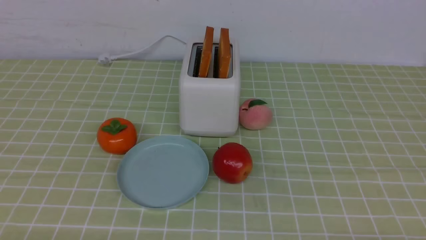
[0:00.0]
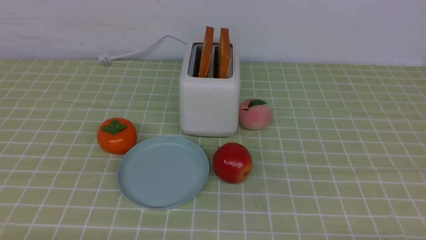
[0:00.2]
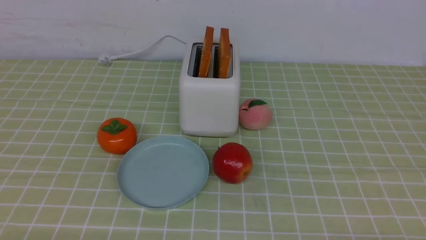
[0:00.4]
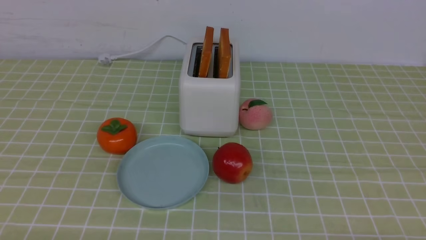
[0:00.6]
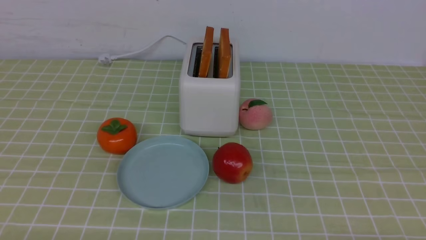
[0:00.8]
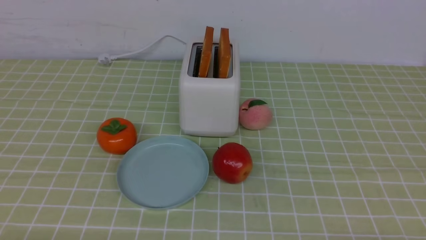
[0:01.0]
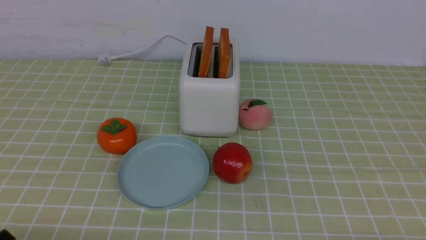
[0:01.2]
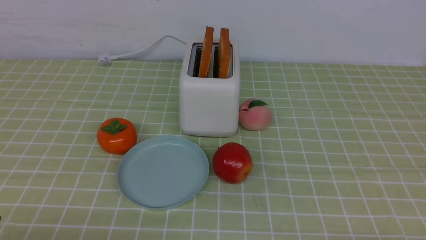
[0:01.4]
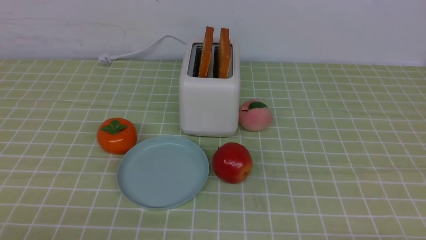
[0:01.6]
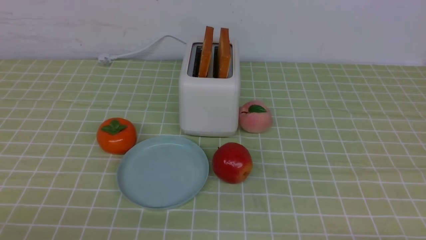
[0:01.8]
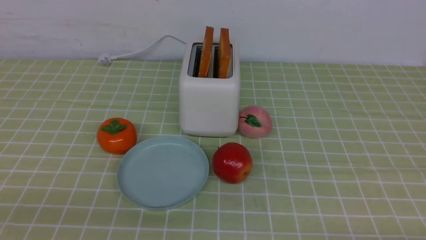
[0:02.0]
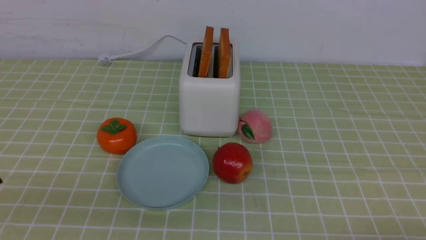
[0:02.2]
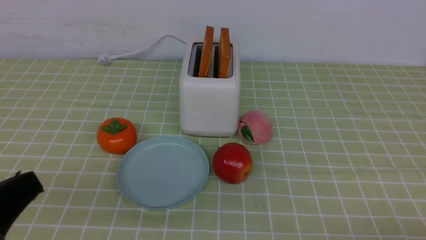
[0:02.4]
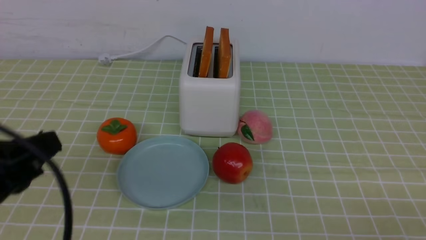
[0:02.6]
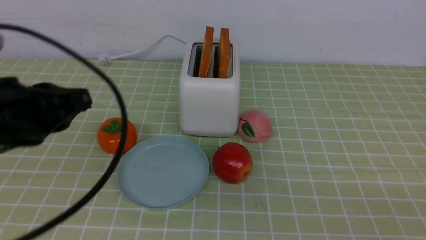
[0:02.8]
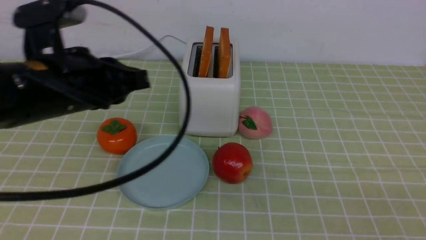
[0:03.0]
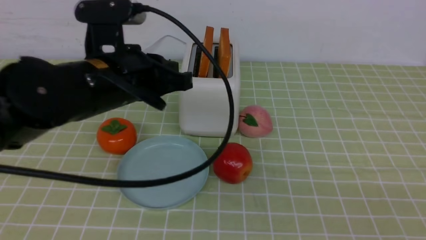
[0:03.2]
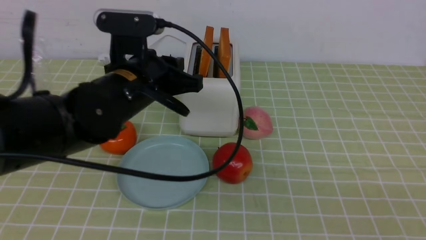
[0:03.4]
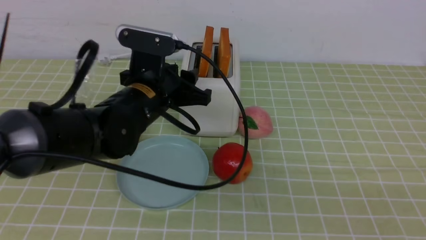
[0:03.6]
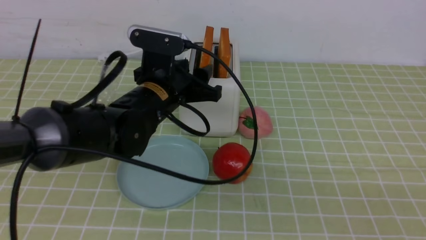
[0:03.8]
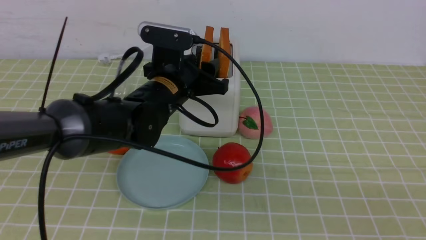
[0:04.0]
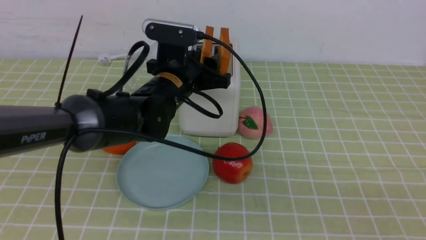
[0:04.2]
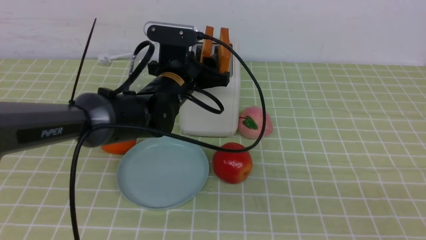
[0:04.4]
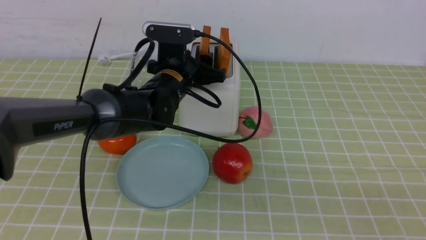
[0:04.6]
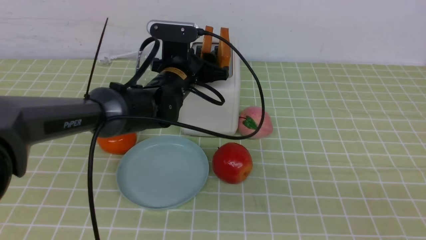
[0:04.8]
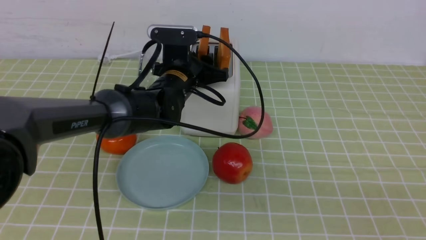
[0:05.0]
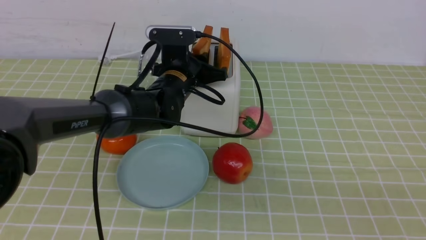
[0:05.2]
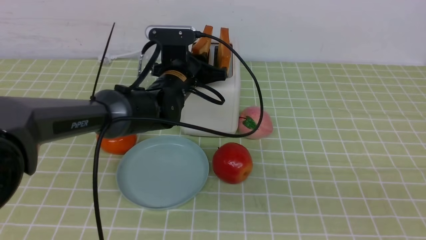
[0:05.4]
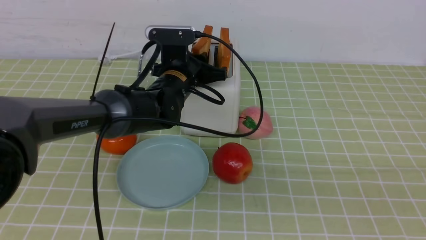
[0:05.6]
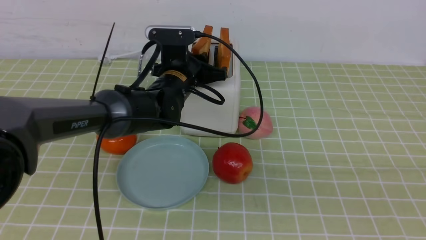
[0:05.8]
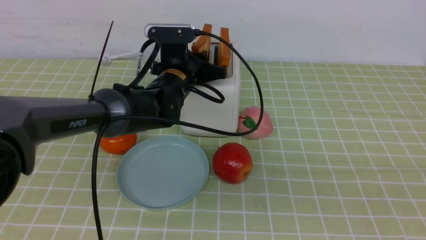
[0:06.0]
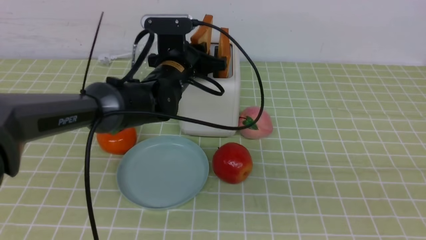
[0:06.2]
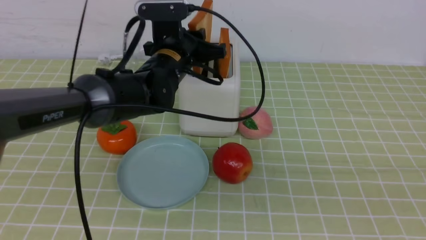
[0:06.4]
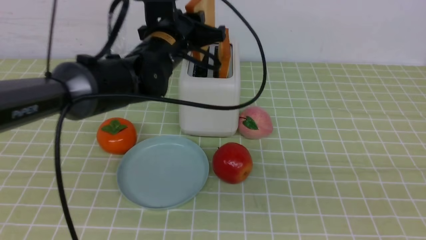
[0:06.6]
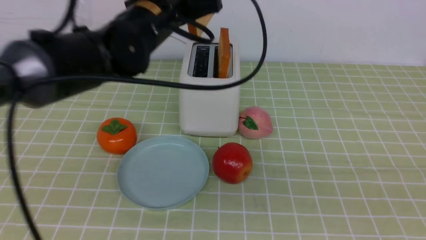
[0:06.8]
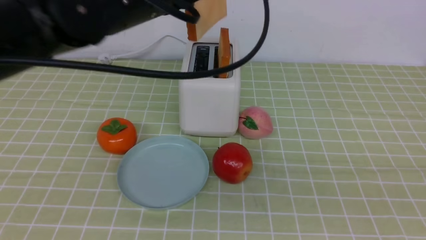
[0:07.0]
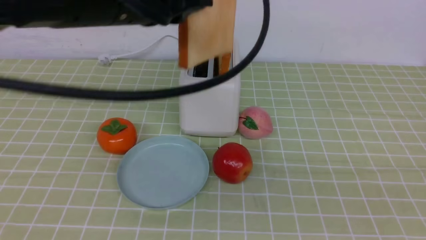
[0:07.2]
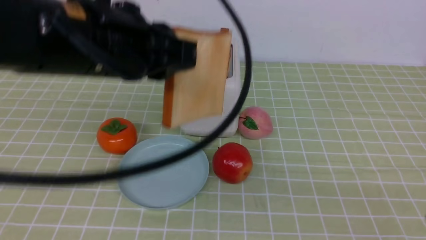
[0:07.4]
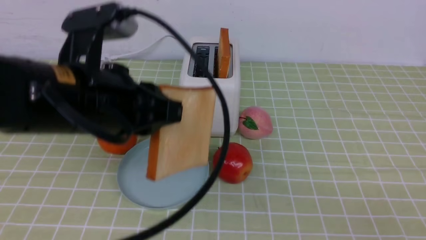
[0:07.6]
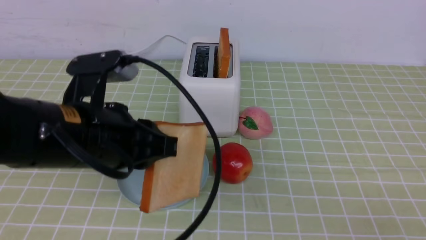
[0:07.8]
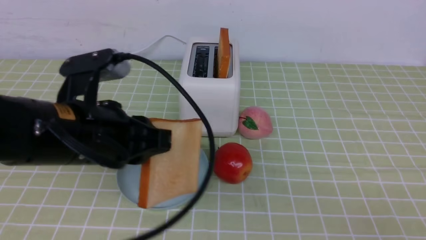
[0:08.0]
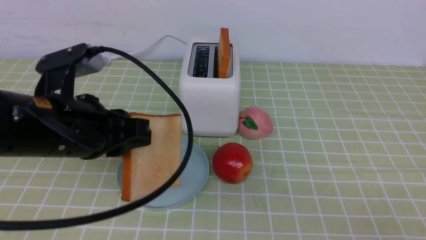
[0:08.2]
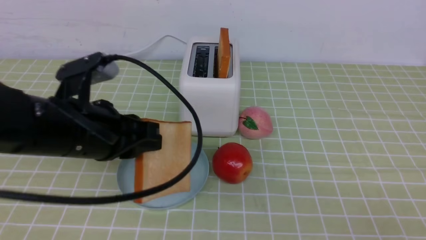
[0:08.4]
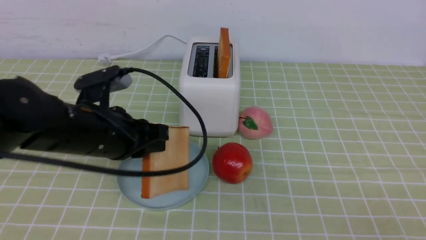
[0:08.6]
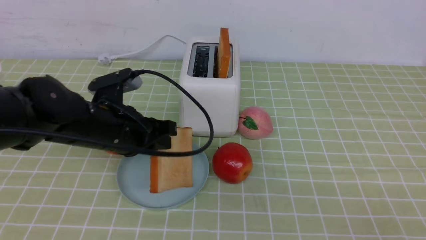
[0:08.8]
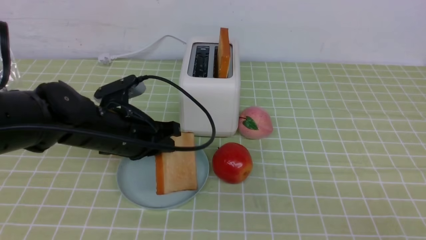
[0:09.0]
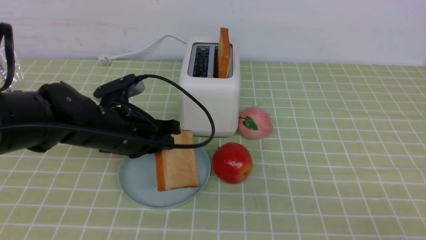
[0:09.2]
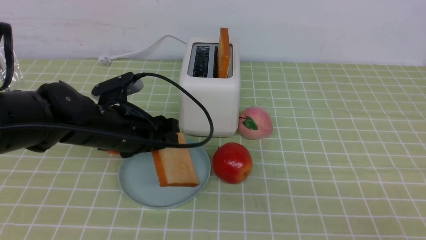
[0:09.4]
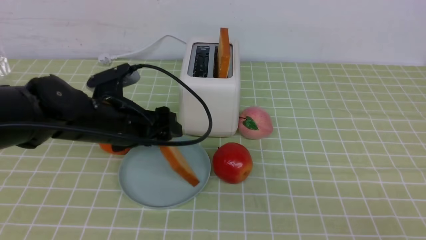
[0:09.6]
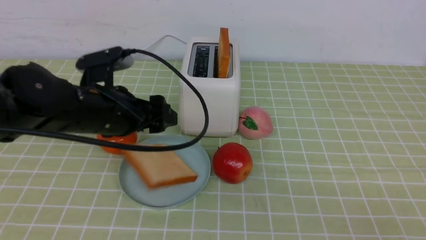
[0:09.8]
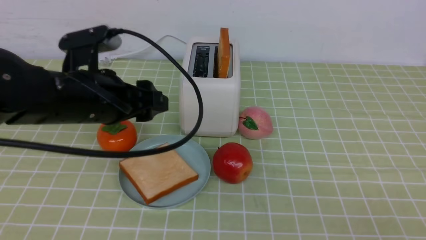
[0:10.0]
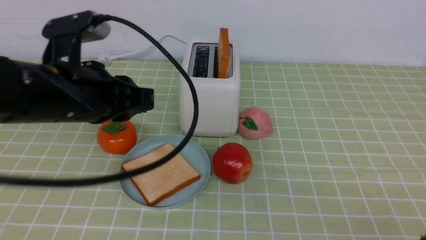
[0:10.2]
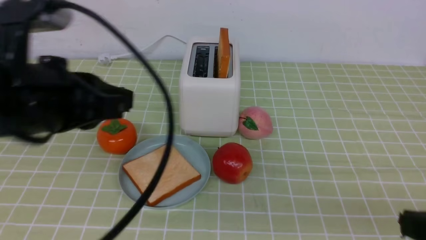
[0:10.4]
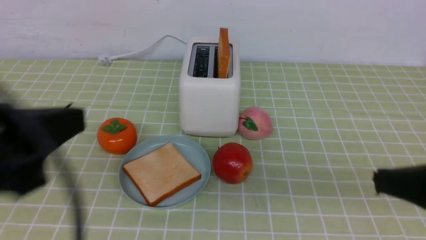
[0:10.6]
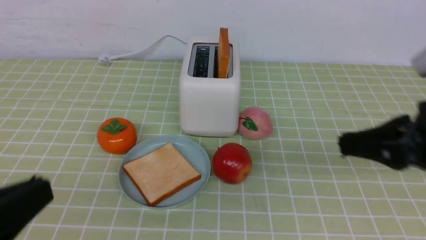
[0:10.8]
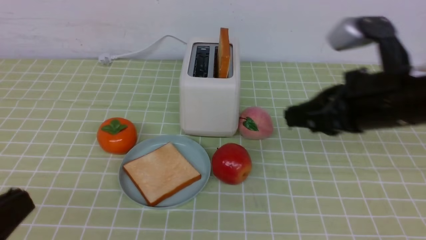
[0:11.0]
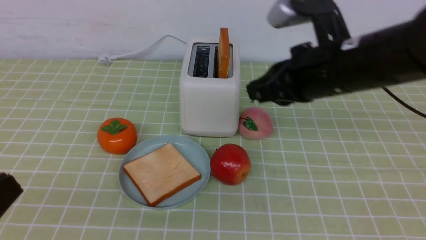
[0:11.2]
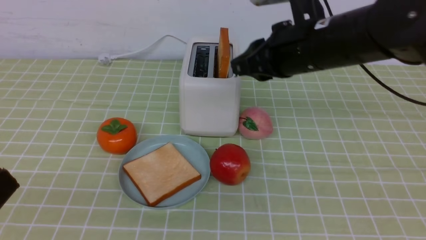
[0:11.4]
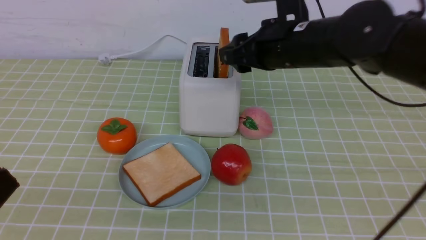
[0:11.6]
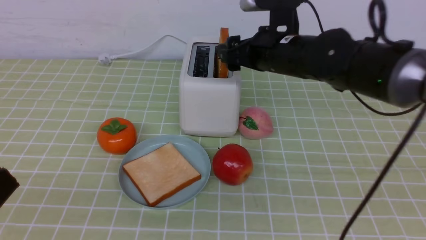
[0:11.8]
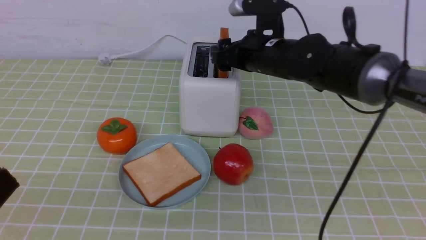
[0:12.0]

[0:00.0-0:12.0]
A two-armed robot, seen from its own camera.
Task of the whole recording: take toasted bread from bread machine on green coffee tablecloth place on plate.
Step, 0:00.0 to 0:06.6: use the left arm to take out a slice of bread.
Step, 0:06.8 to 0:10.0: use the left arm to put a slice of bread into the empty plate.
0:01.6 to 0:03.0: The left gripper goes roughly 25 cm forward, upward and to the right, and closes up; the right gripper goes roughly 15 cm upward, and closes up.
0:03.0 to 0:04.4: The left gripper moves forward, to the right and downward, approximately 20 cm, and opens.
0:04.4 to 0:06.0: The left gripper closes up.
0:06.0 to 0:07.6: The left gripper heads backward and upward, covering about 25 cm.
0:07.6 to 0:09.0: The left gripper heads downward and forward, covering some 15 cm.
0:09.0 to 0:10.4: The right gripper heads forward, covering roughly 5 cm; the left gripper is displaced backward and upward by about 20 cm, and opens, then closes once more.
0:10.4 to 0:12.0: The right gripper is displaced forward and to the left by about 35 cm, and opens up, while the left gripper travels backward by about 15 cm.

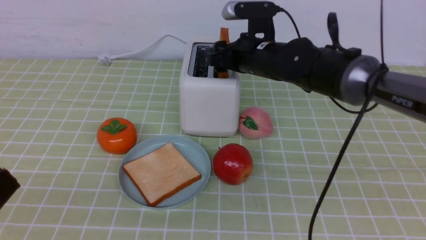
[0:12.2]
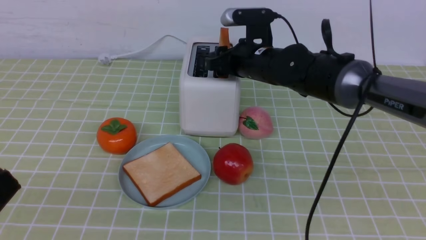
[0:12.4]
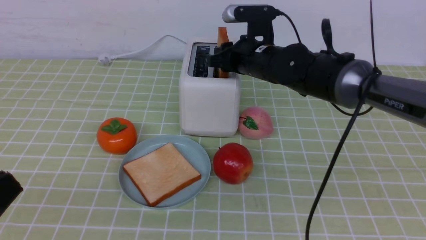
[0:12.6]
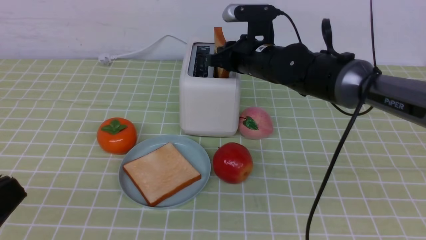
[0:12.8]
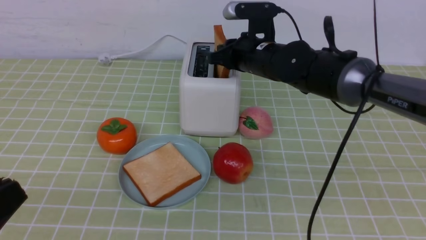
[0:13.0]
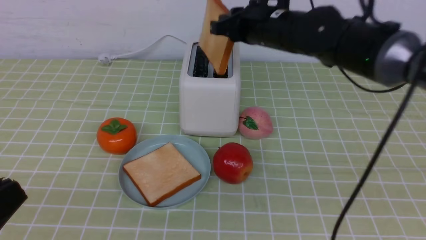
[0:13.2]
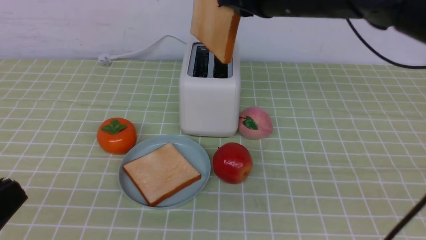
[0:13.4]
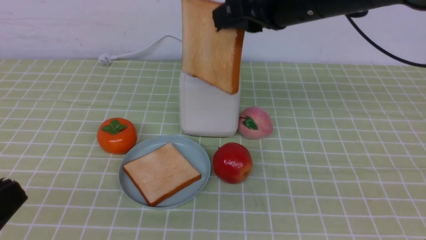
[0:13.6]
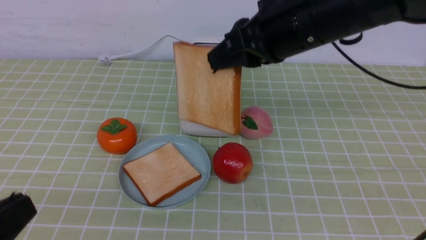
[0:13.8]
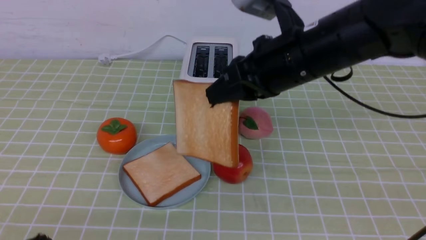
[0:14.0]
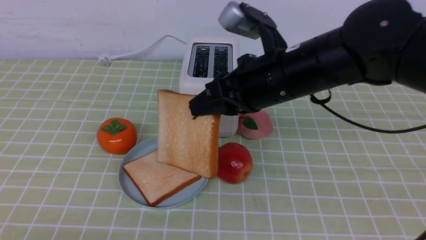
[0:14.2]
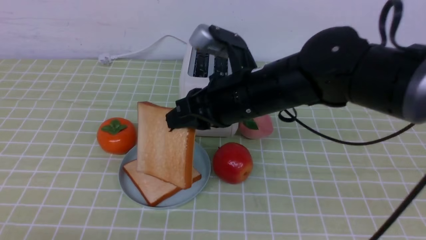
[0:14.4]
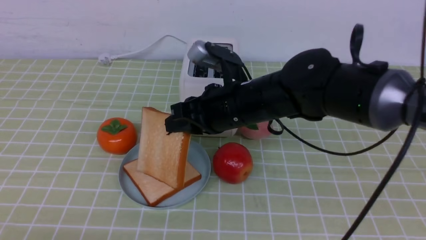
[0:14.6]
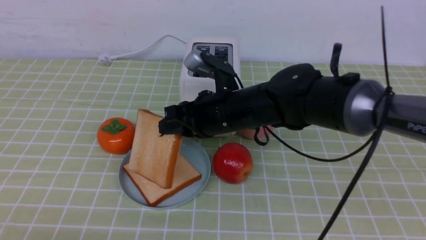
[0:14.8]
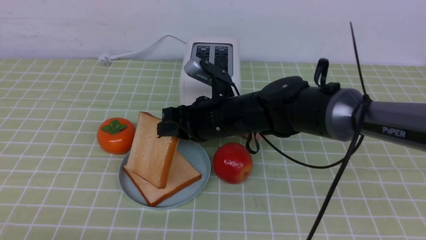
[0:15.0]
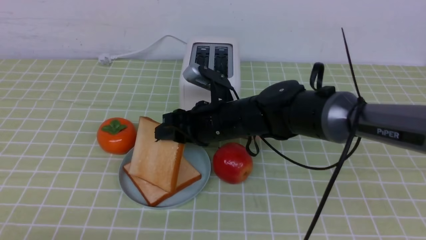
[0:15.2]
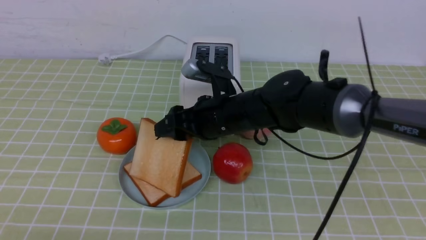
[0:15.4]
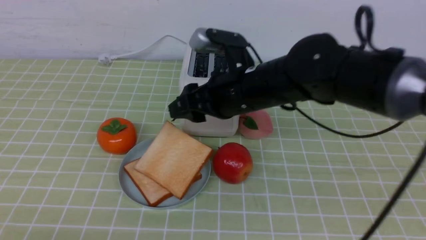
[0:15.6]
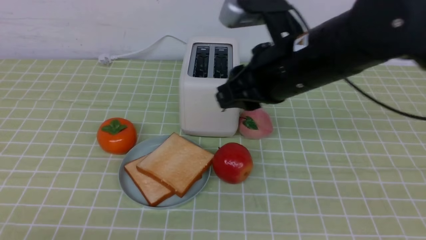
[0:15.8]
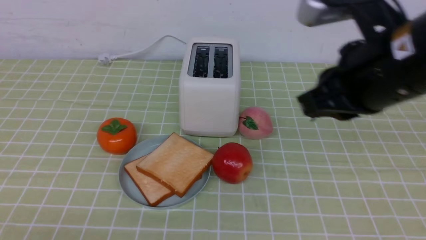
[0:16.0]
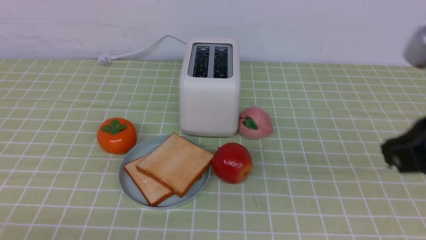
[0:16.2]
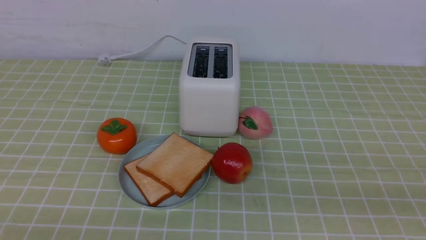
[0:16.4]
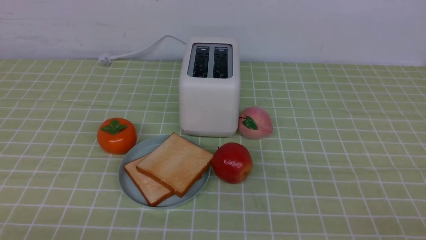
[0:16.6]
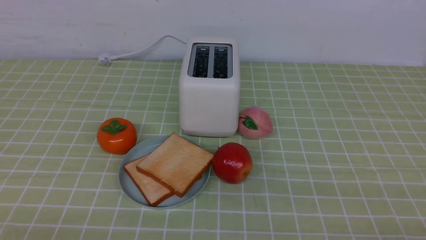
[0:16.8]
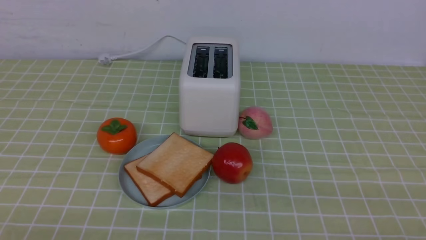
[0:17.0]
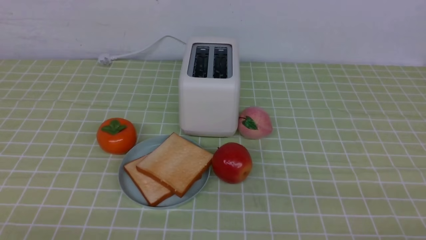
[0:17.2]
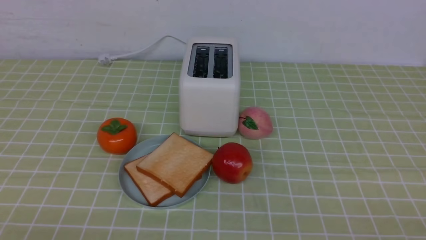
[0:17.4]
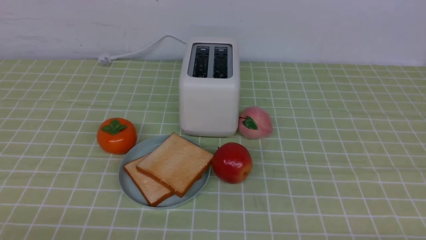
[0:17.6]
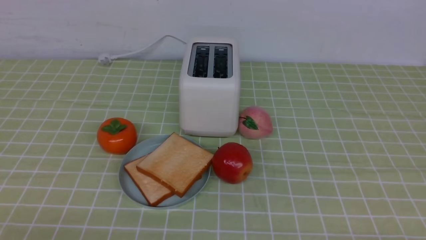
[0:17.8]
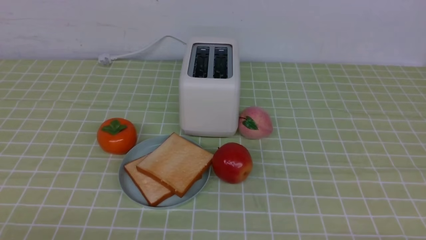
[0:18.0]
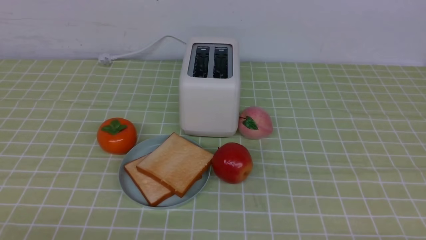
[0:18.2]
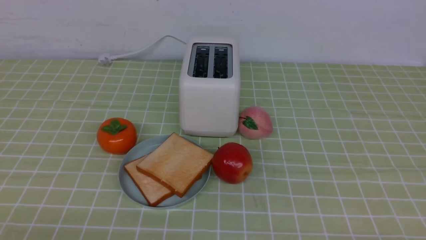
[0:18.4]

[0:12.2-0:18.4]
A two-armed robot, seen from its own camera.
Task of the whole recording: take toasted bread from bread machine on green coffee tablecloth place on plate.
Step, 0:13.6 to 0:15.6: use the right arm to put a slice of bread into the plate.
0:12.2 to 0:13.8: The right gripper shifts approximately 15 cm backward and upward, and closes.
0:13.8 to 0:15.4: The right gripper travels downward and to the left by roughly 15 cm, and opens.
0:15.4 to 0:16.8: The right gripper goes about 40 cm backward and to the right, and closes up.
